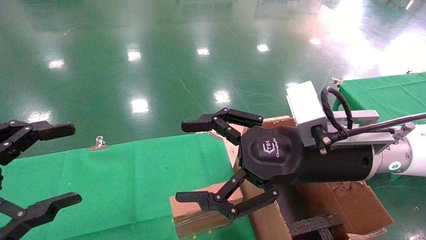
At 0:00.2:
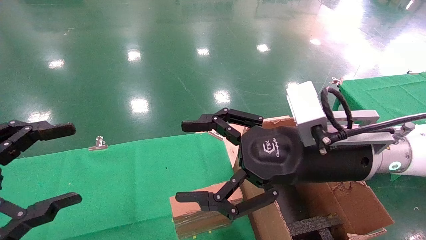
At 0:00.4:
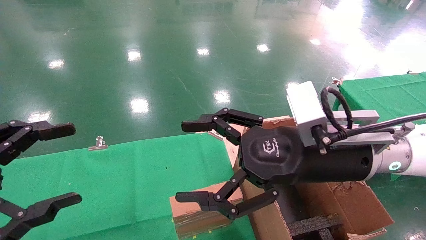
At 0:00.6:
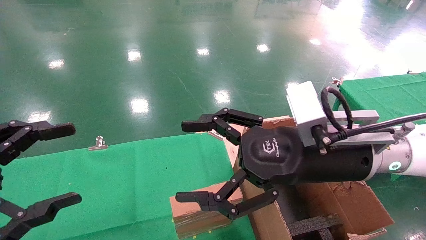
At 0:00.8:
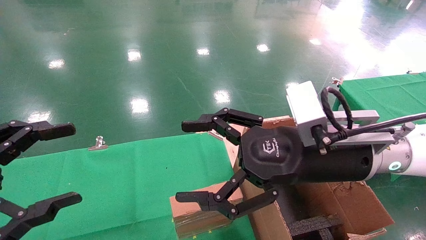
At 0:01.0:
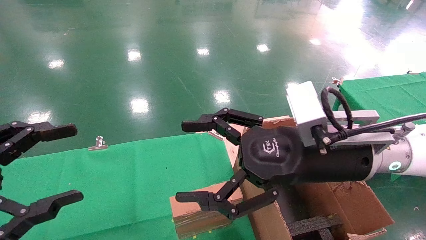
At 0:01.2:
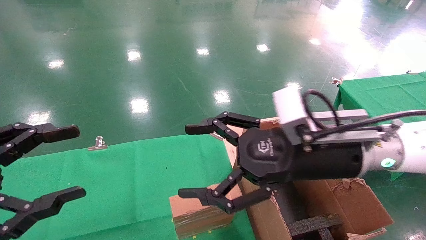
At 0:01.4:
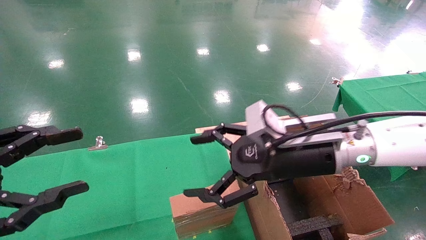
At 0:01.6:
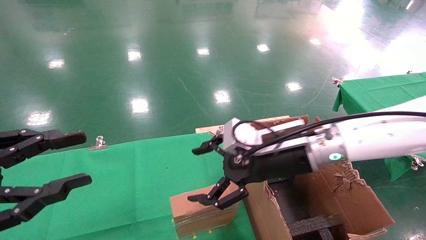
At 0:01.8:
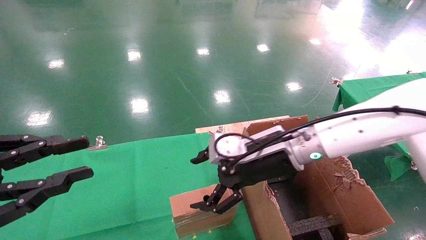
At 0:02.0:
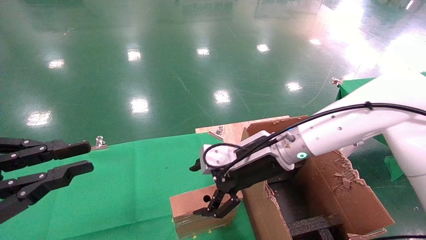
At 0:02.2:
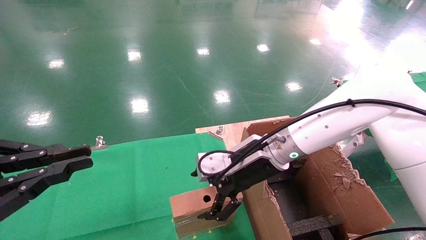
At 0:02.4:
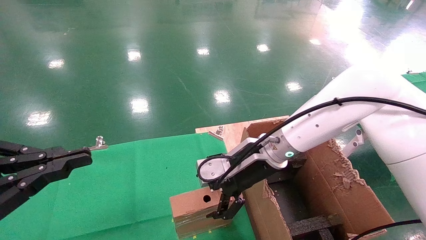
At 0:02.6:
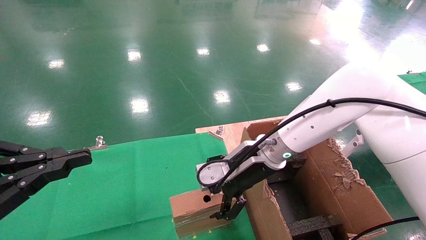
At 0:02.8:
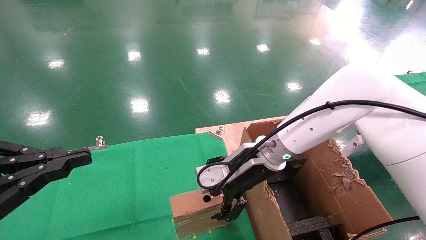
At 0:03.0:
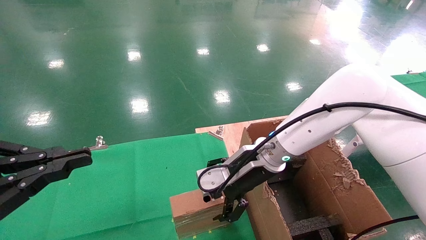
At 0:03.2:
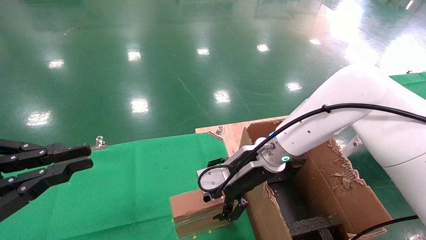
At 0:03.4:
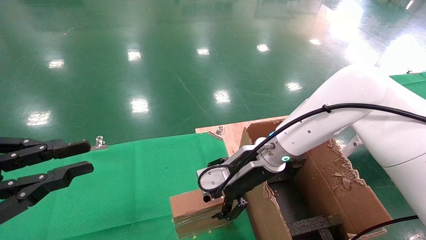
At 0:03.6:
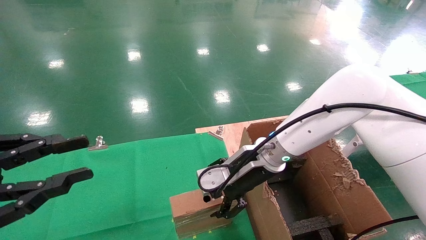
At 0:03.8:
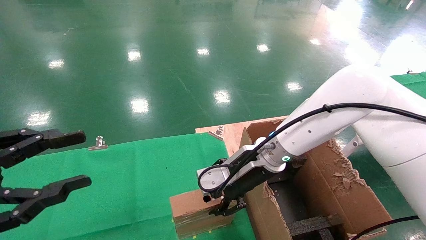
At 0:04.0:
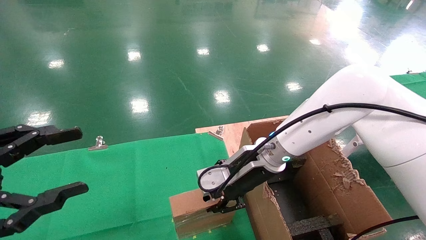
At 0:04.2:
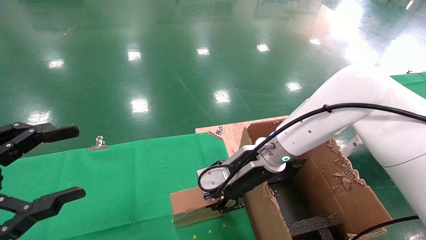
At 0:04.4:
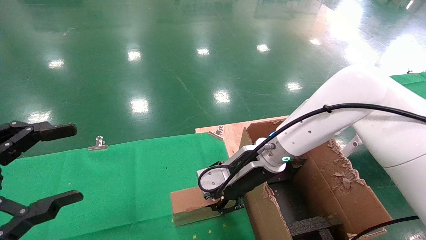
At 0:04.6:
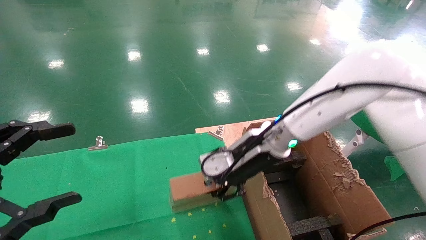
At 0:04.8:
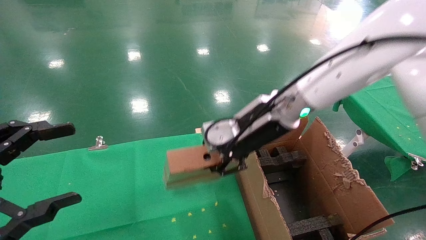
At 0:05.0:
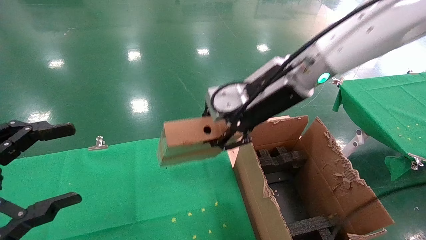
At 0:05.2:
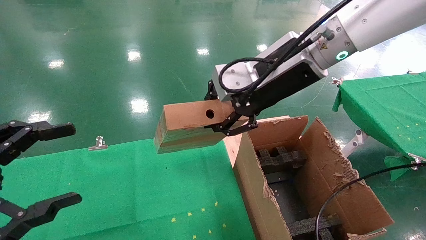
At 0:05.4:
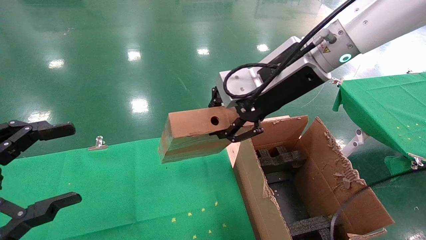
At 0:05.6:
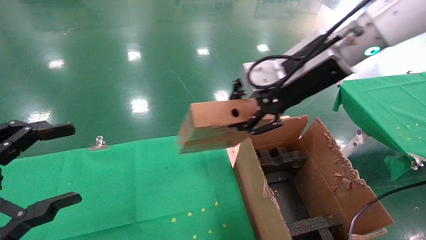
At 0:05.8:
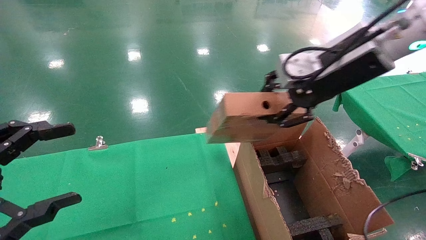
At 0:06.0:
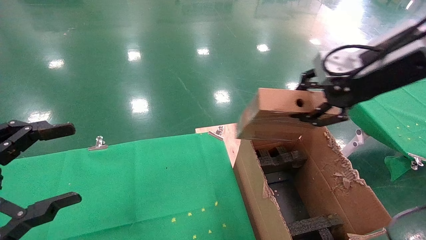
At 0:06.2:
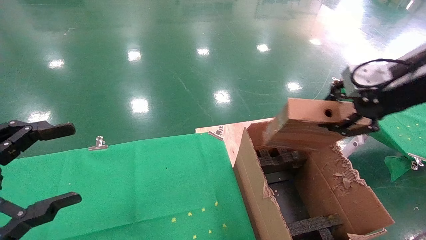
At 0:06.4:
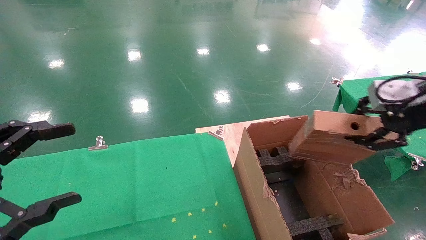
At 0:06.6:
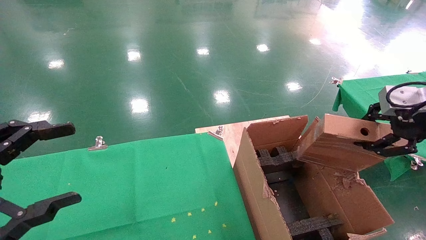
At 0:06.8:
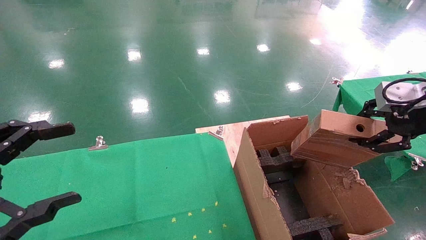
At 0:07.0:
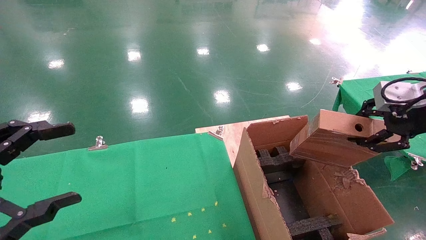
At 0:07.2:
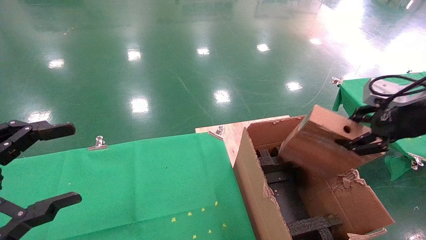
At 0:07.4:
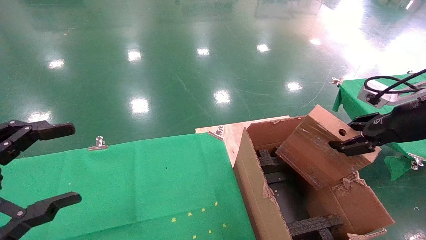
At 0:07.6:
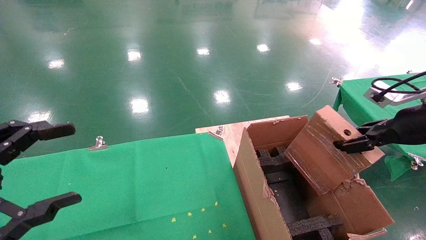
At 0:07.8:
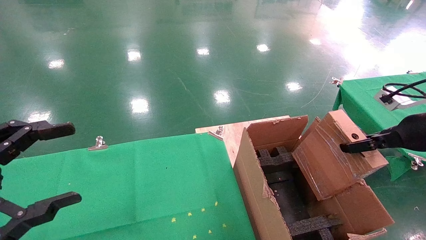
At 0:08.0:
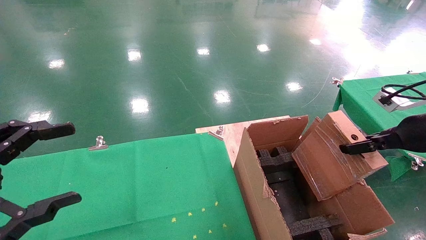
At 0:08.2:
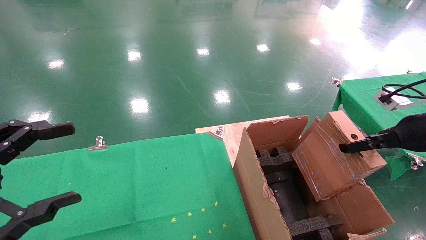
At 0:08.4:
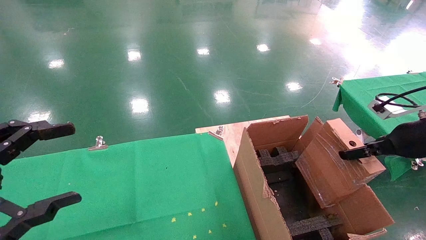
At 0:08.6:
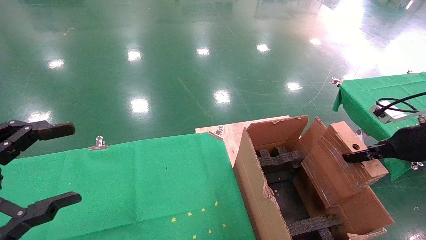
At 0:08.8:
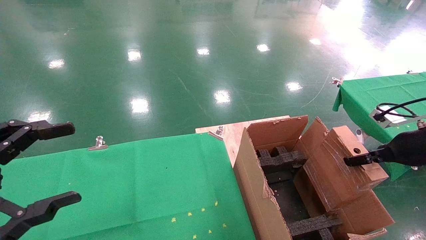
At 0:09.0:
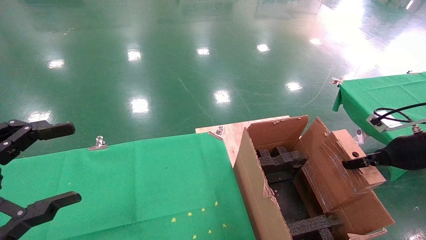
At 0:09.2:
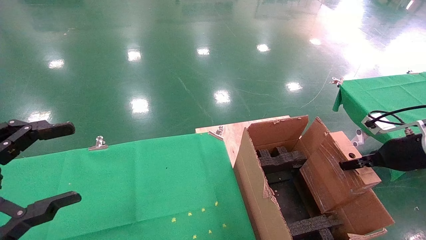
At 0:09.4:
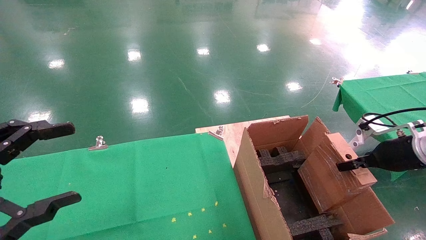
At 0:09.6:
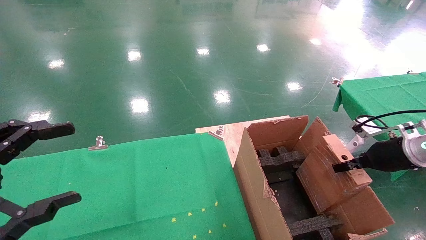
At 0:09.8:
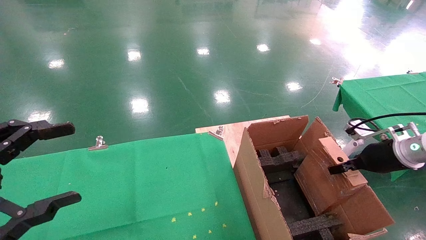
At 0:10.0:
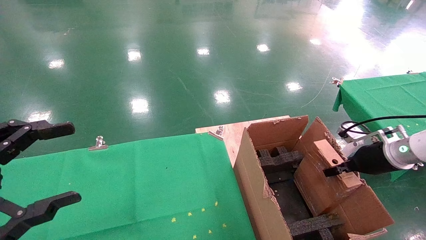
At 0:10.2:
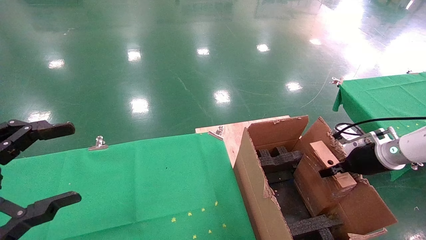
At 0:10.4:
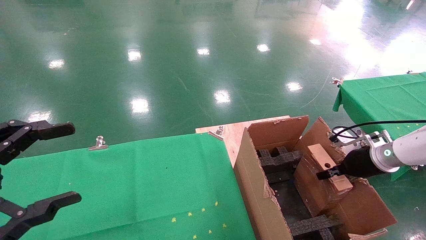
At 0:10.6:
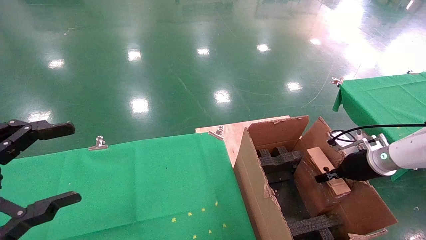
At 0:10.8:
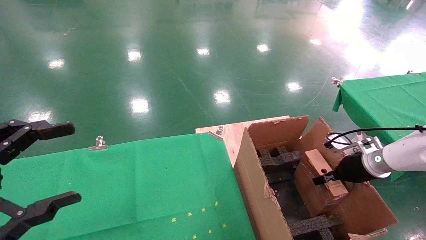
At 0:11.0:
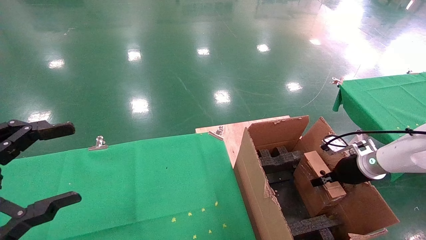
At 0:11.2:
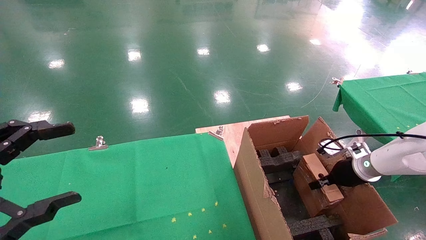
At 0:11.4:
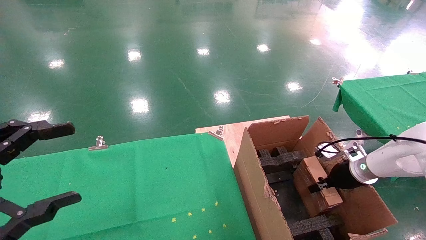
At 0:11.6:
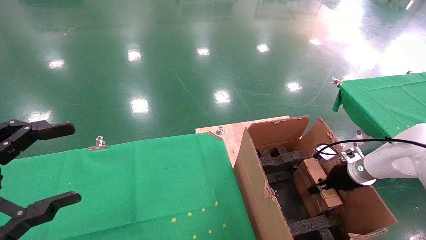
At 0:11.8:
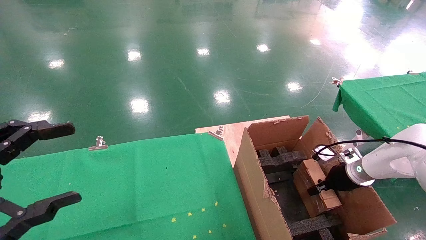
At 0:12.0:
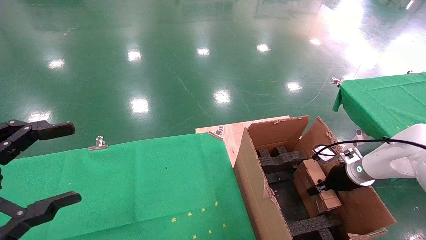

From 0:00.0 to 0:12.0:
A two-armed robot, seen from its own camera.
Task of the whole recording: using a robotic arm to pick up a cardboard box and palace it the carton.
Step, from 0:01.2 to 0:04.0: Pick up the mouse and the power cord paper box.
From 0:00.0 to 0:01.6: The right gripper moves forward, about 5 cm. Meanwhile the left gripper closes up.
From 0:01.6 to 0:03.0: The left gripper closes up, while the right gripper ends up some 5 cm from where it was.
From 0:03.0 to 0:04.4: The right gripper closes its fingers, while the left gripper opens.
From 0:04.4 to 0:06.0: The right gripper shifts approximately 25 cm to the right, upward and backward.
From 0:06.0 to 0:07.6: The right gripper shifts roughly 15 cm to the right and downward.
From 0:07.6 to 0:09.0: The right gripper travels downward by about 5 cm.
From 0:09.0 to 0:10.4: The right gripper moves forward and downward, roughly 10 cm.
From 0:10.4 to 0:12.0: The right gripper is displaced downward by approximately 5 cm.

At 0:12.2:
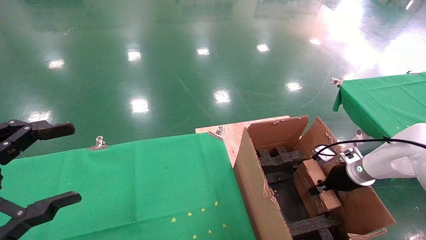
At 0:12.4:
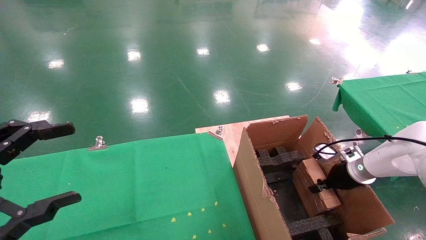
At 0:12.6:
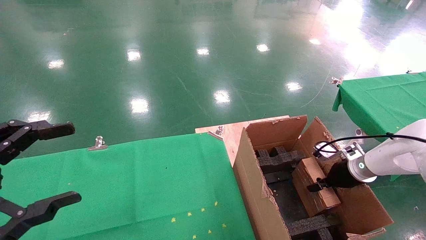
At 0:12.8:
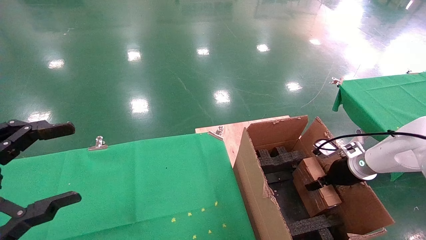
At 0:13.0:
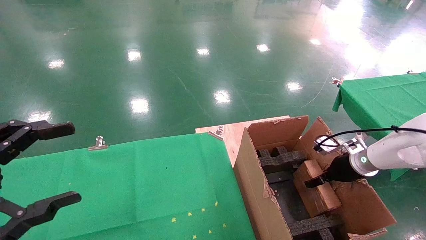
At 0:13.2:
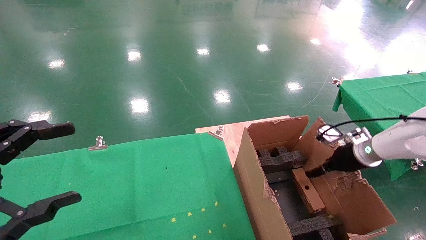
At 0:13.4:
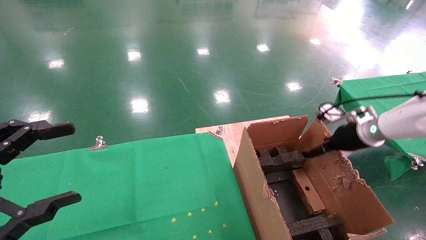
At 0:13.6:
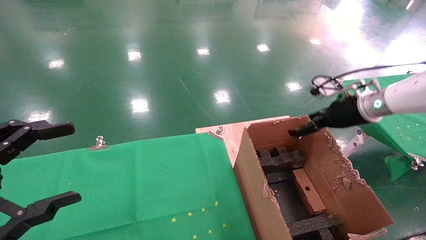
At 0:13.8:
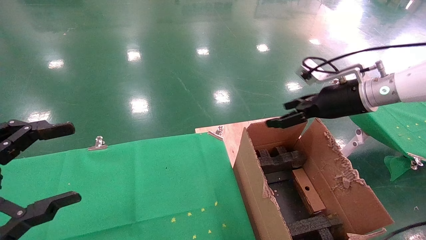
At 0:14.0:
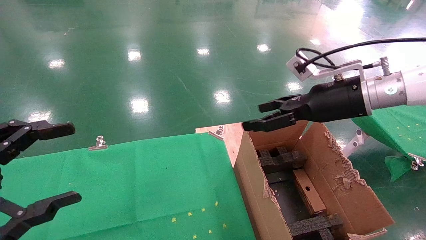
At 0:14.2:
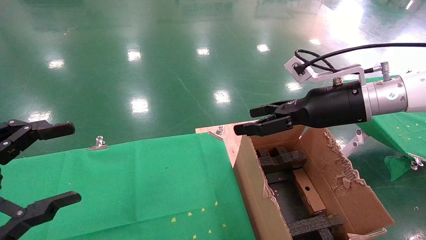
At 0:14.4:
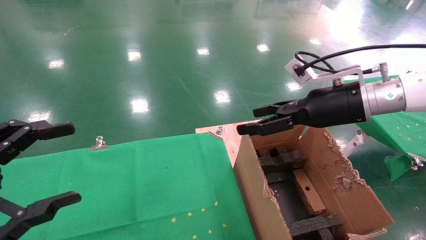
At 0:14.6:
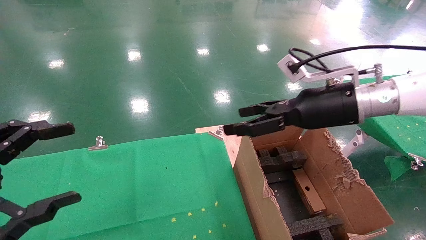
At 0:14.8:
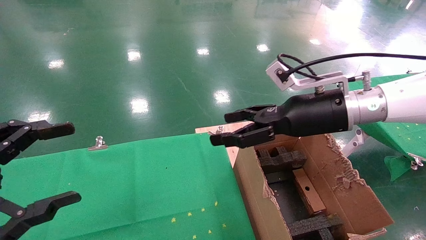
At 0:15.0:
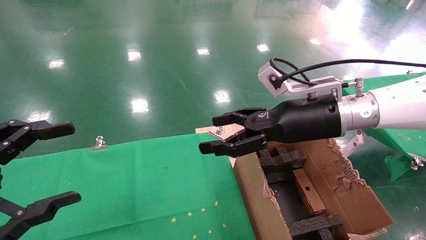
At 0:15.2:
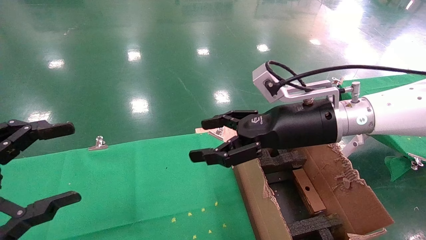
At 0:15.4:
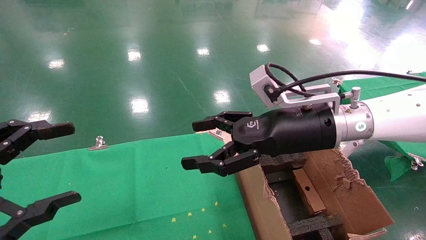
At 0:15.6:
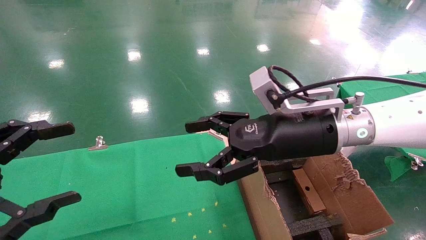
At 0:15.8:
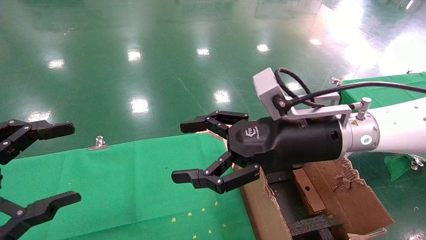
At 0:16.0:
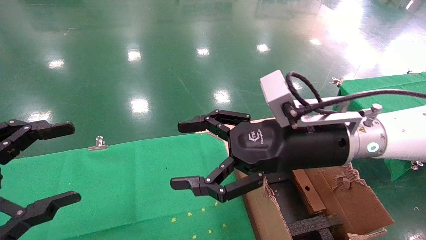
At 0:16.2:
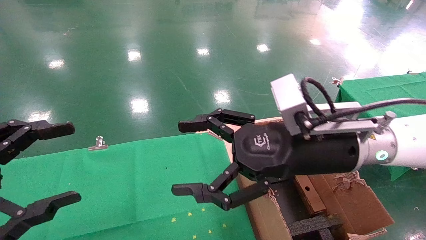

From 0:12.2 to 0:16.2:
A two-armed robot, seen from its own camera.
Task of the whole recording: using a robotic arm to pick up a cardboard box and palace it the carton.
From 0:12.2 to 0:13.6: The right gripper goes about 20 cm upward, and opens.
From 0:13.6 to 0:14.8: The right gripper is displaced to the left and backward by roughly 15 cm.
From 0:14.8 to 0:16.2: The right gripper travels backward and to the left by about 10 cm.
